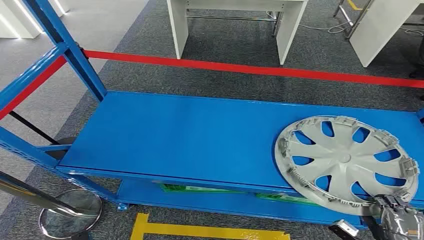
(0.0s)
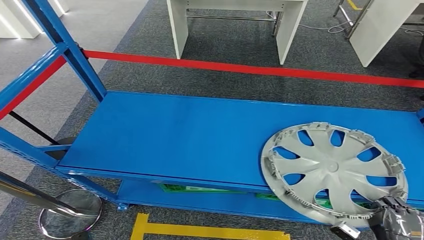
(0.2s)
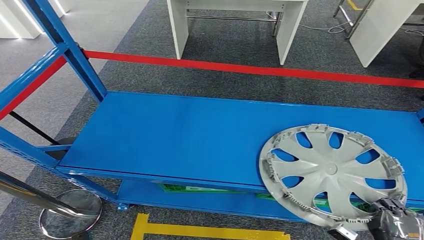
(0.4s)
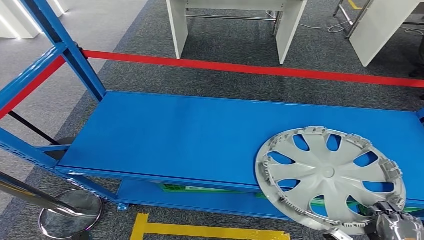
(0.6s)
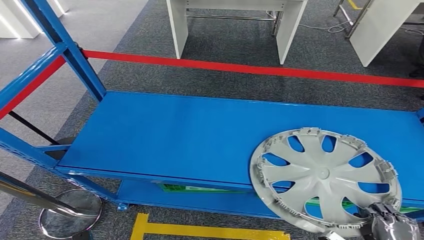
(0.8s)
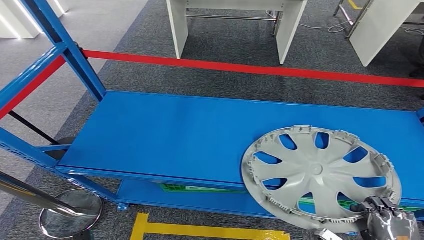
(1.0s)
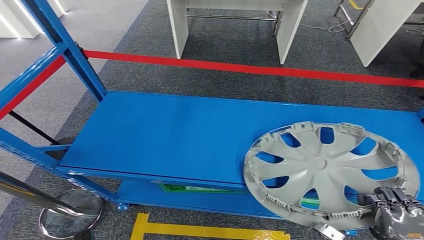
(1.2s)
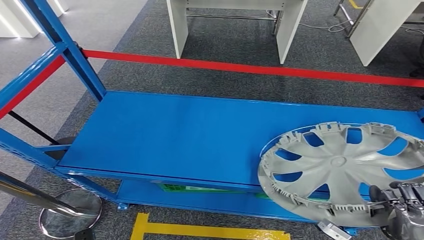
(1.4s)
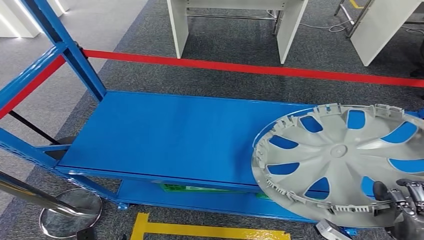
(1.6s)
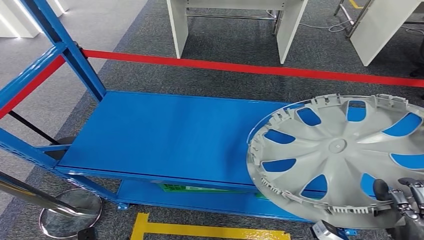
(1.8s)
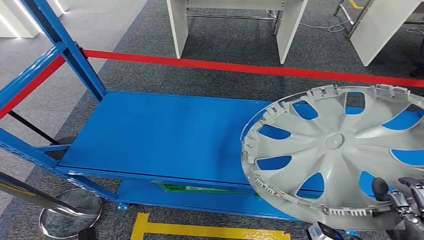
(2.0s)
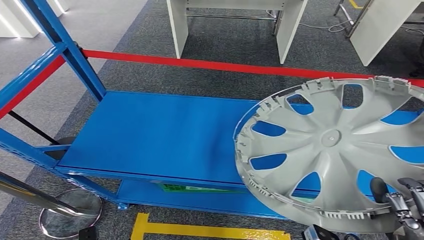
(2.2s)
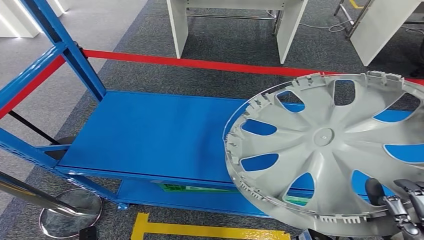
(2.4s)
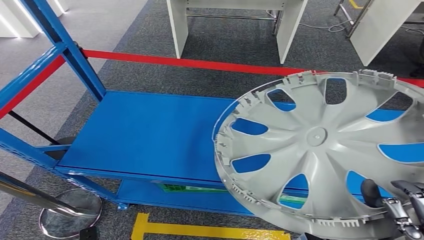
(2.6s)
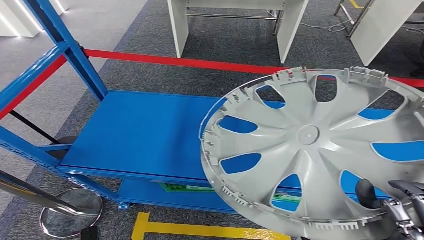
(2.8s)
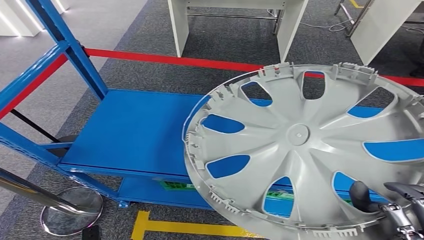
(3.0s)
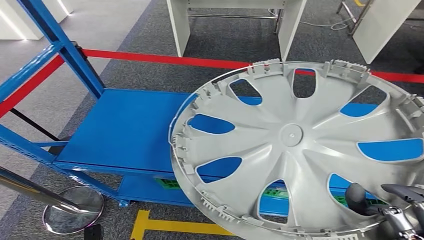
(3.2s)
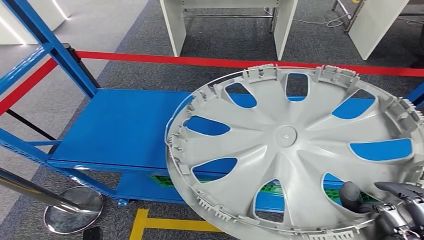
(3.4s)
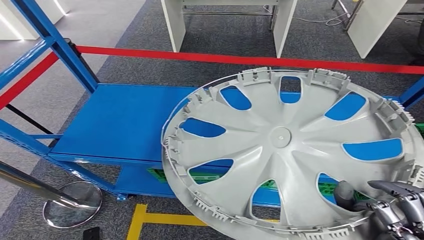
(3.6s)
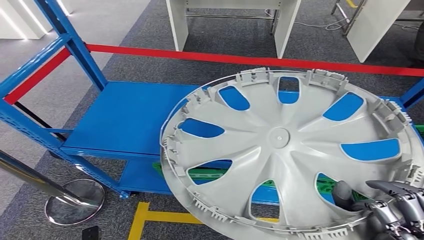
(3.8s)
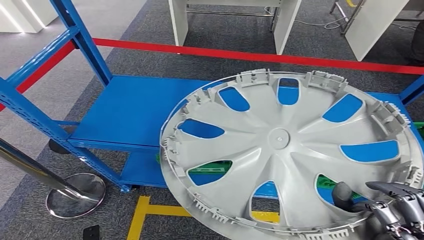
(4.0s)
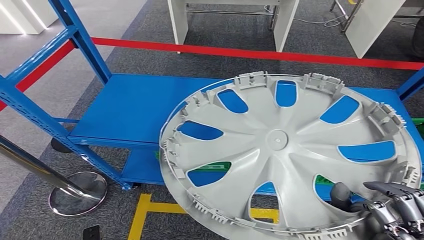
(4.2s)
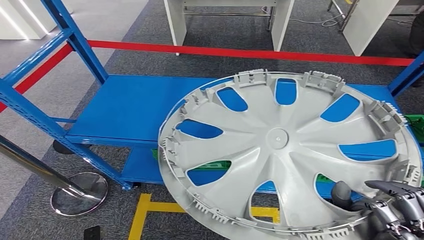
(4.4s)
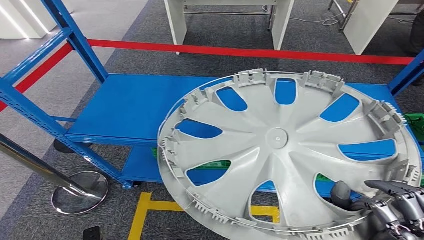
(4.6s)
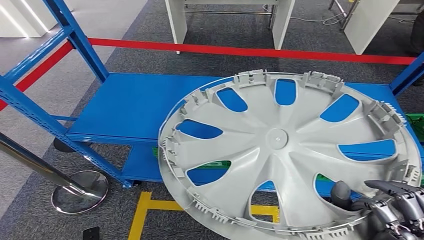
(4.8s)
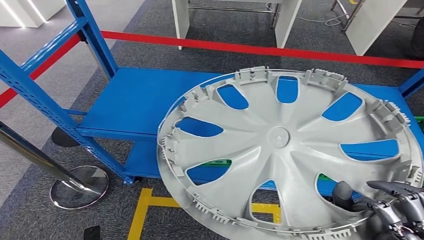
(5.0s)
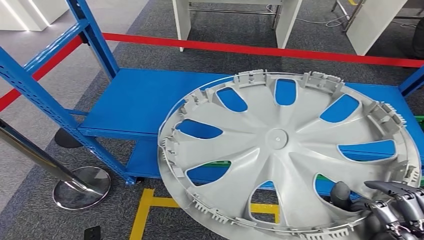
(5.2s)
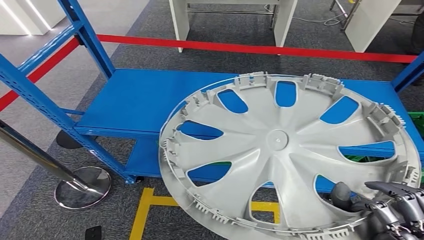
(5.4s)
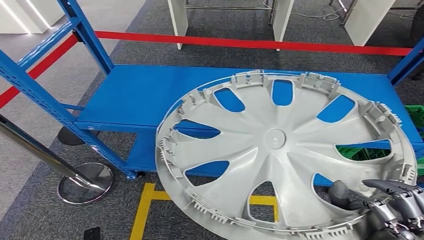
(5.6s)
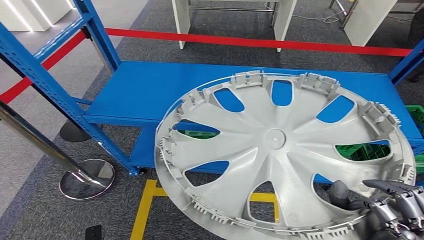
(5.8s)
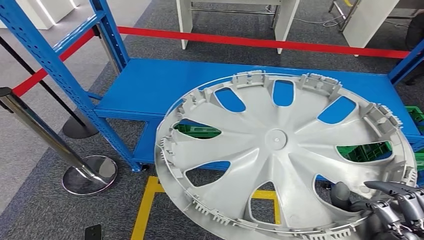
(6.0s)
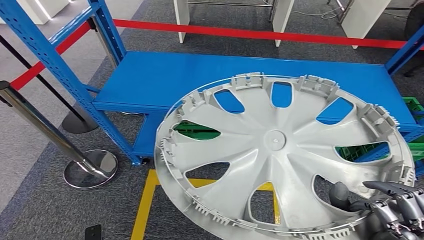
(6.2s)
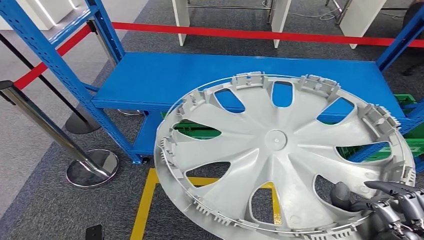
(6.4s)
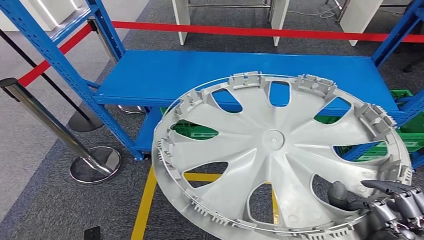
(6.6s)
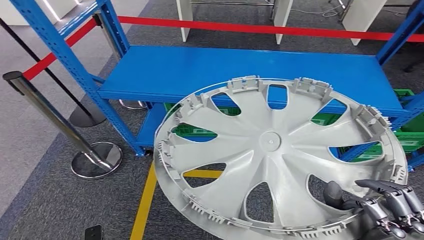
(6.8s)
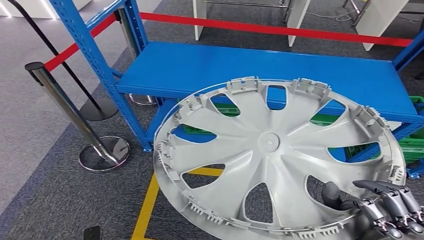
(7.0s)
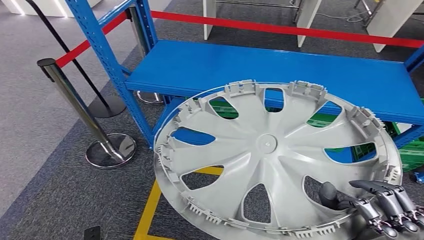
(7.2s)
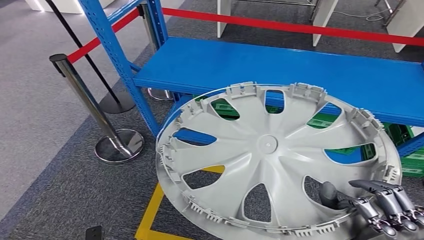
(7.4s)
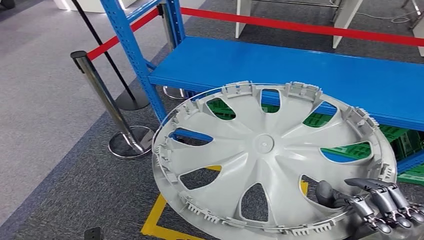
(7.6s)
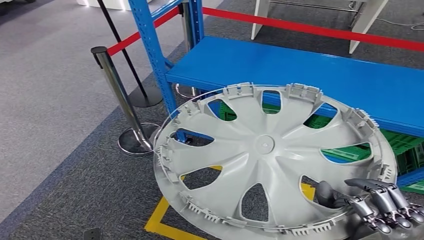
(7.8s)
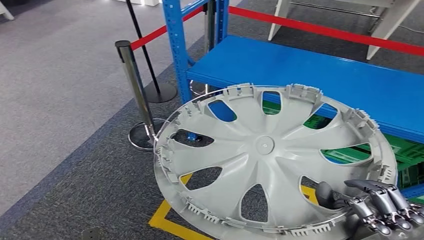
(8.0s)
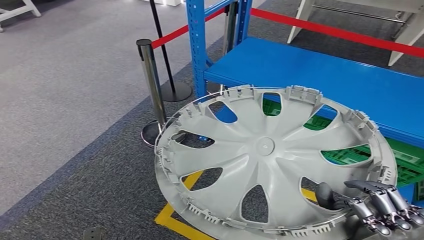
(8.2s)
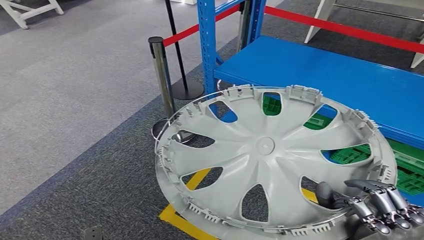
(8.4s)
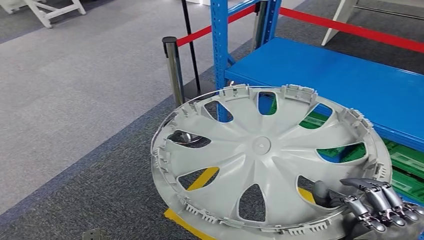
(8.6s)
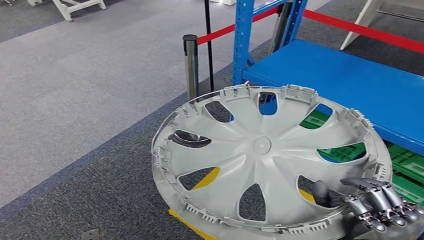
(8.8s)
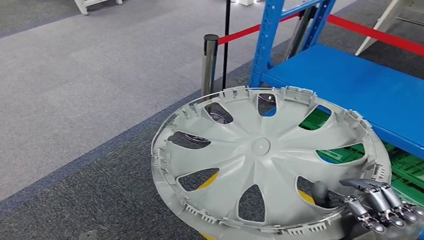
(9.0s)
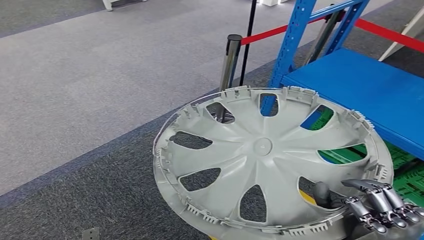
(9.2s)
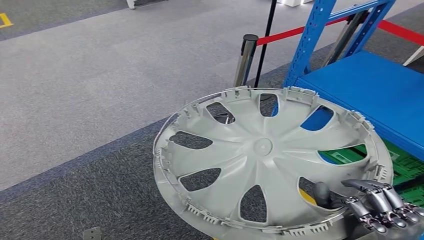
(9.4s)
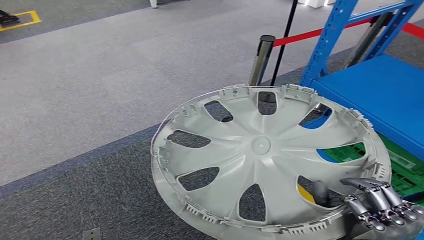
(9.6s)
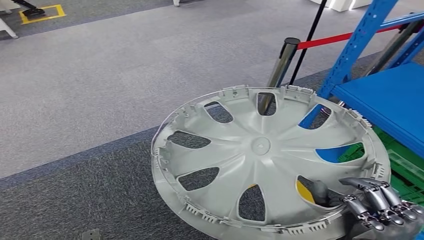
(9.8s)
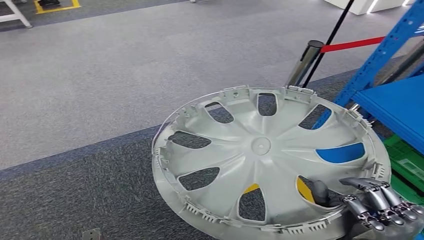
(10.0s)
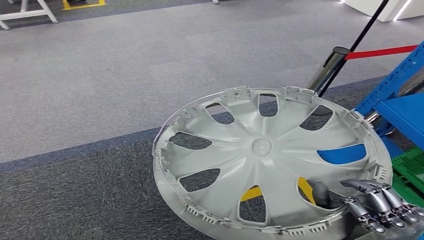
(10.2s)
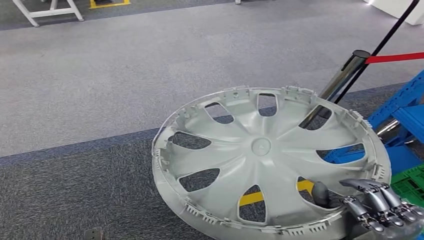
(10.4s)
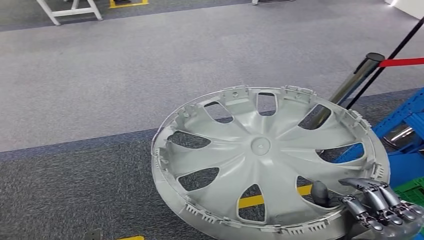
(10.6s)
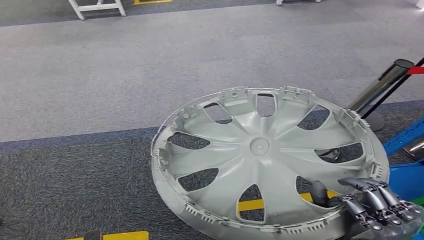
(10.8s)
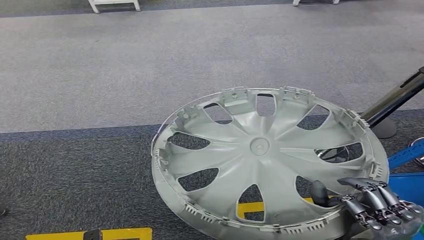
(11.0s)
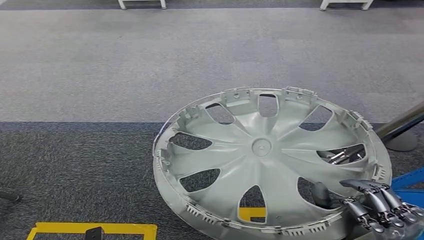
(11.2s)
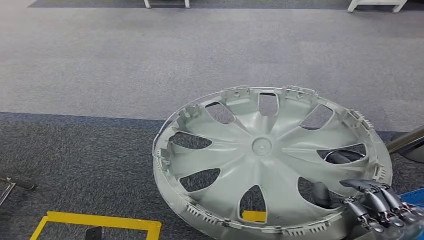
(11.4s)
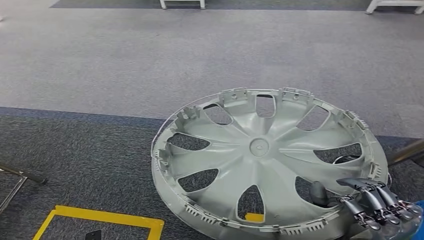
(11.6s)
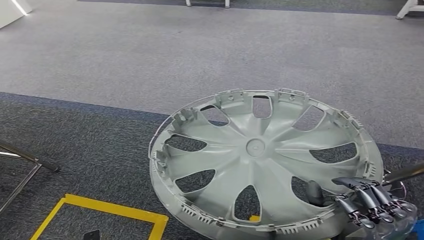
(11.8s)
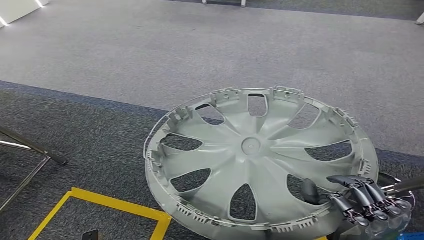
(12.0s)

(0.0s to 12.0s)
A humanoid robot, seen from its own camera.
Step, 0.0s - 3.2s: Pick up the small component from the shelf.

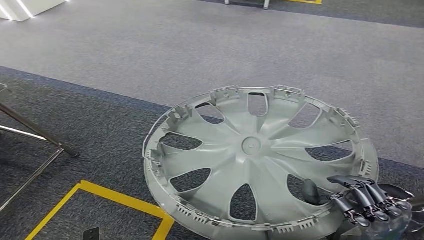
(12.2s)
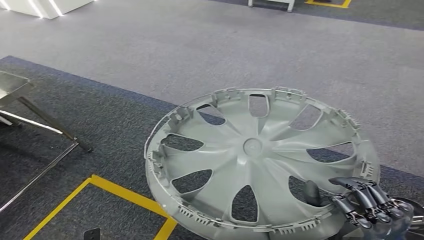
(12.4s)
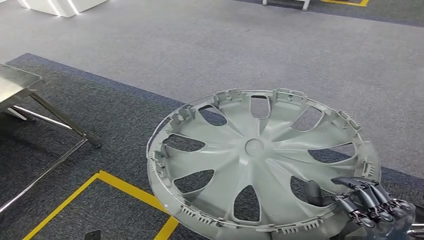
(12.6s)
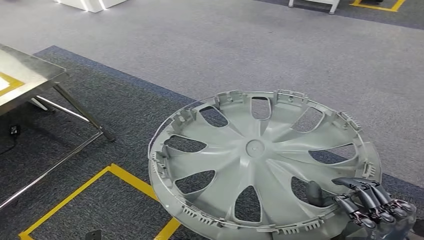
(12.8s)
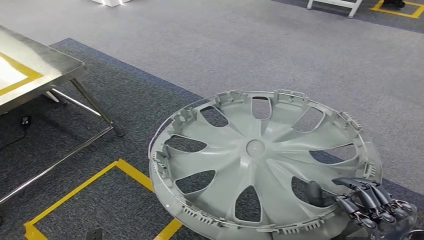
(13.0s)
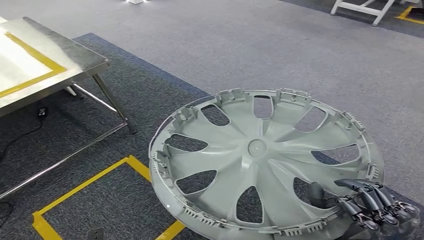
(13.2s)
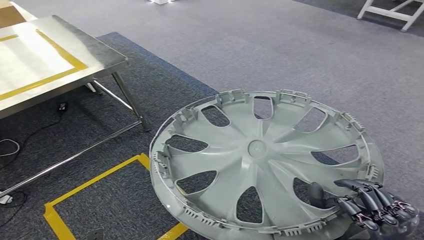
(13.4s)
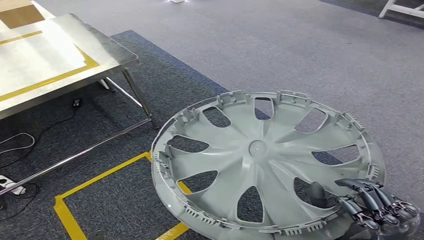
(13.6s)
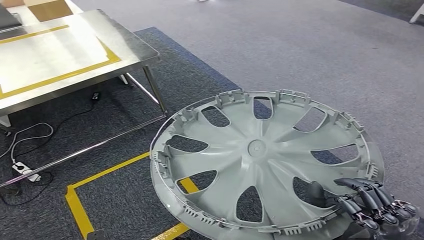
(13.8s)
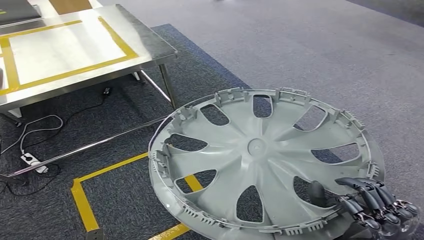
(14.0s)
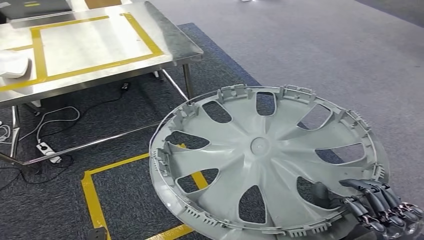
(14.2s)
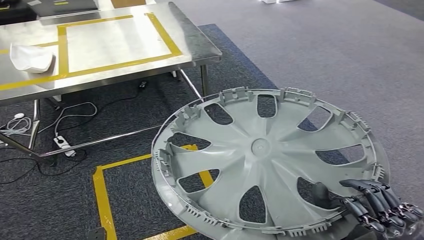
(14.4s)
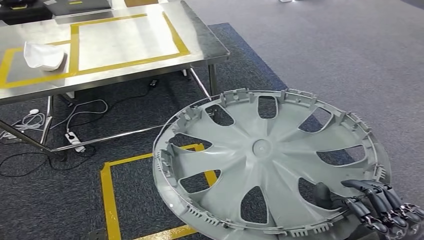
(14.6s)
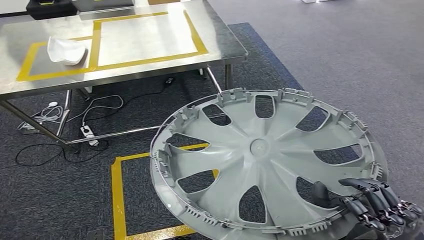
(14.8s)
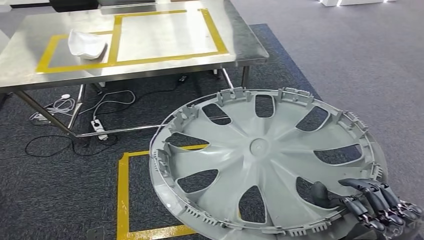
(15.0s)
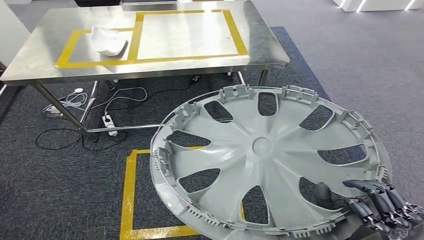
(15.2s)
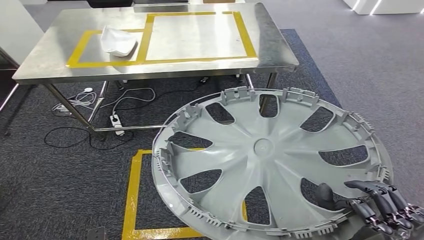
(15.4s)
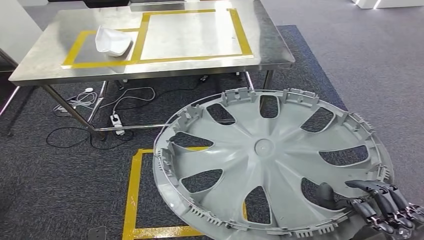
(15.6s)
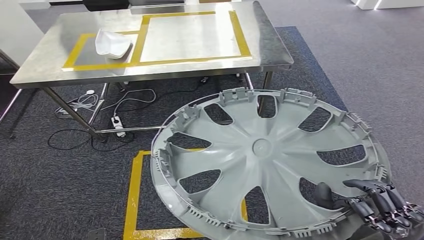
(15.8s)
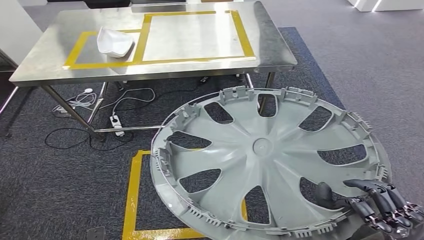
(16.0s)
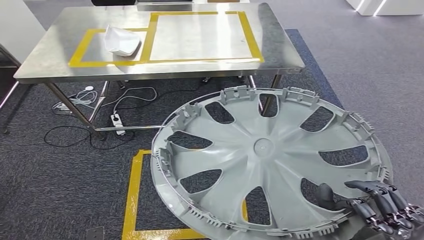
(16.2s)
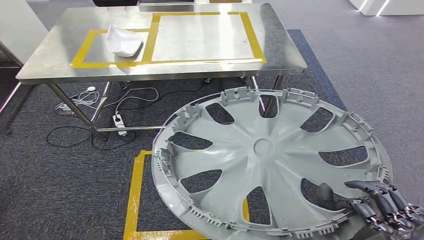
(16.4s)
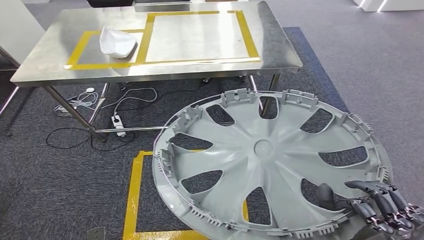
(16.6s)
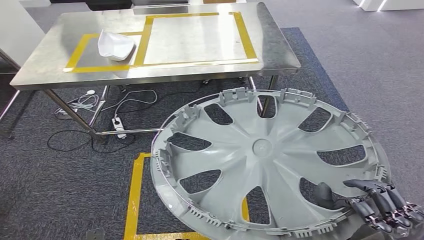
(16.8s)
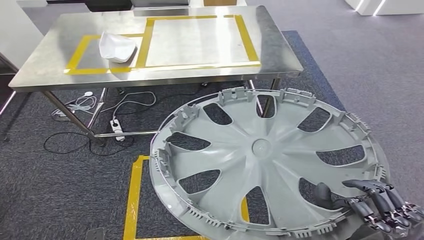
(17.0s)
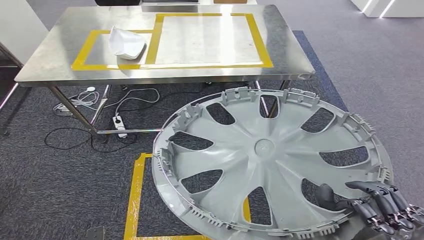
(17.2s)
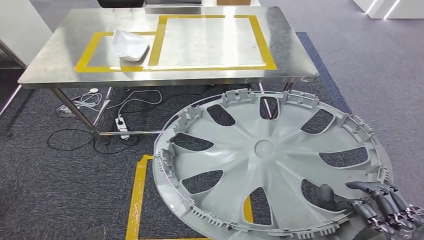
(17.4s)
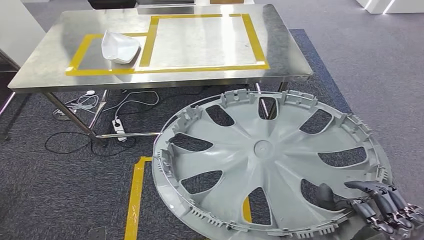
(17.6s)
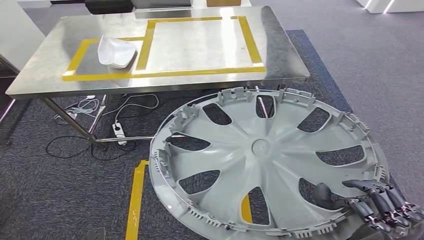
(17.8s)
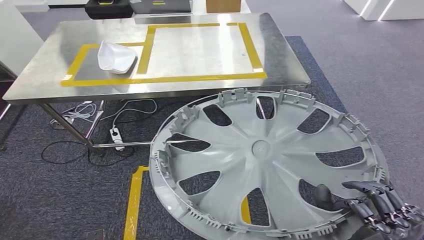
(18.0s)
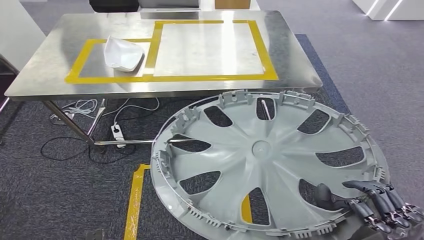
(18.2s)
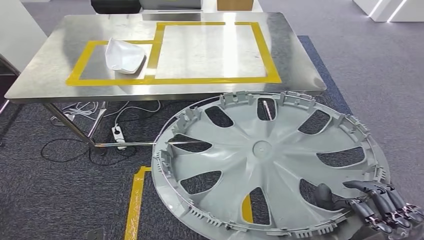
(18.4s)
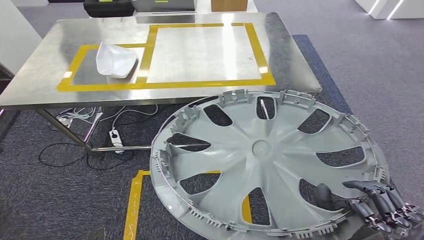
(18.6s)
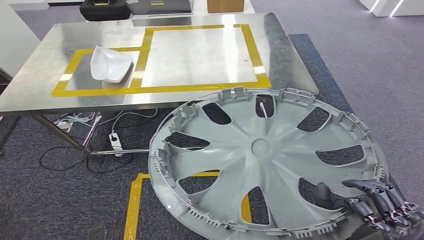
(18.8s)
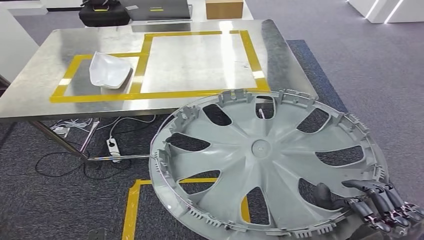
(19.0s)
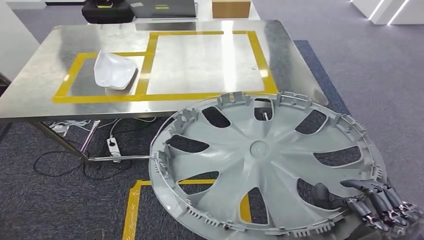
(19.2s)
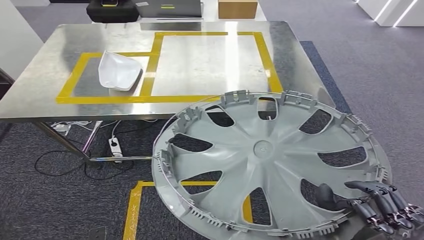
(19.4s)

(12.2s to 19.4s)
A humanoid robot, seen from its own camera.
Step, 12.2s - 18.6s: Move the small component to the workbench.
